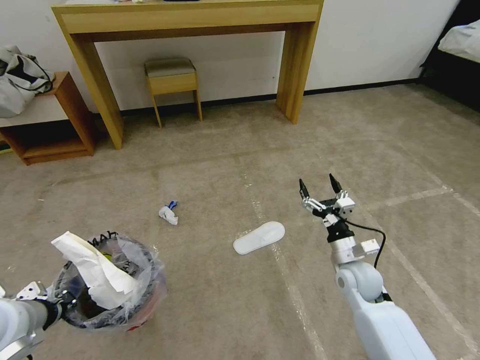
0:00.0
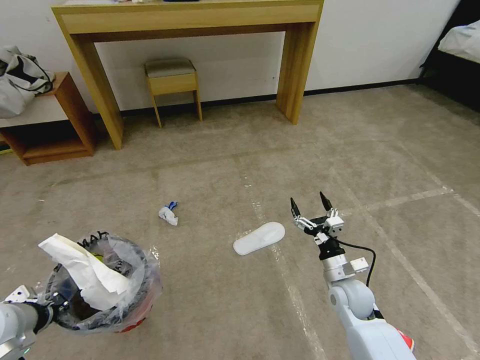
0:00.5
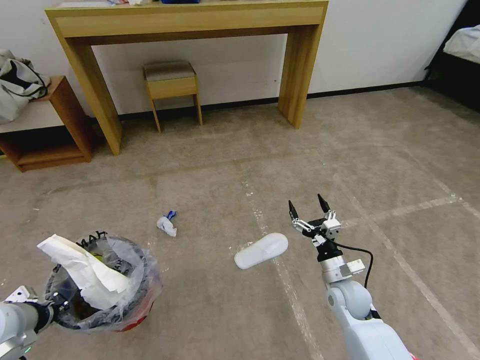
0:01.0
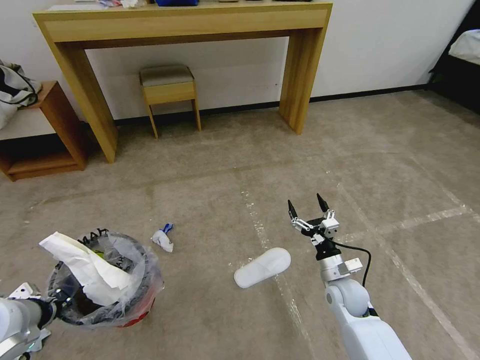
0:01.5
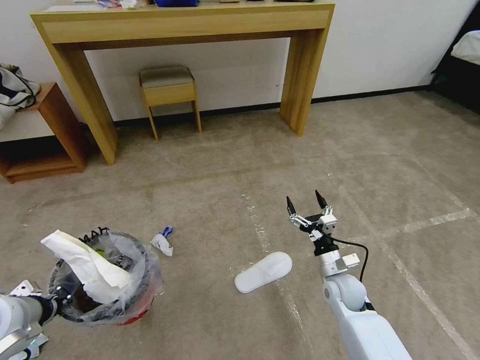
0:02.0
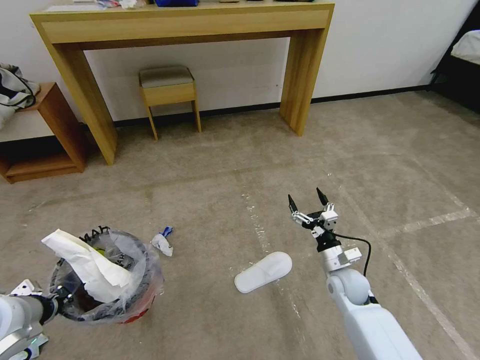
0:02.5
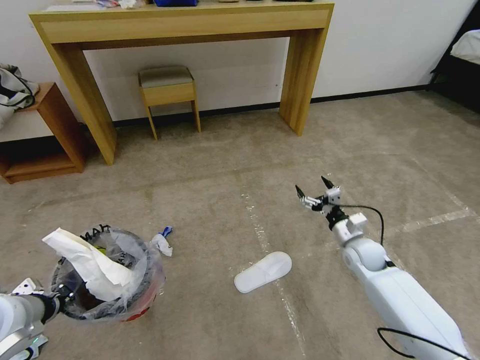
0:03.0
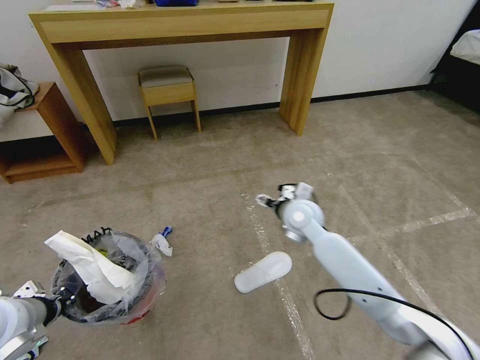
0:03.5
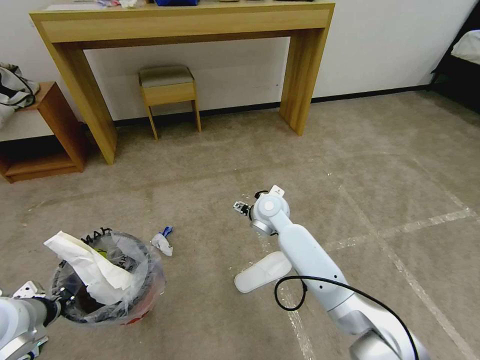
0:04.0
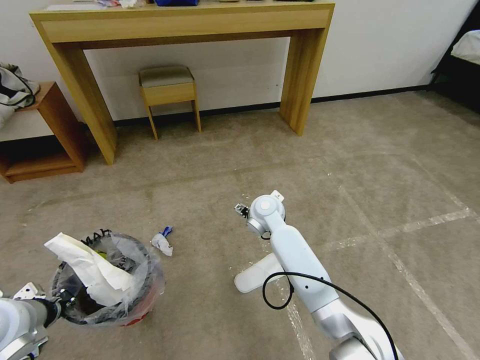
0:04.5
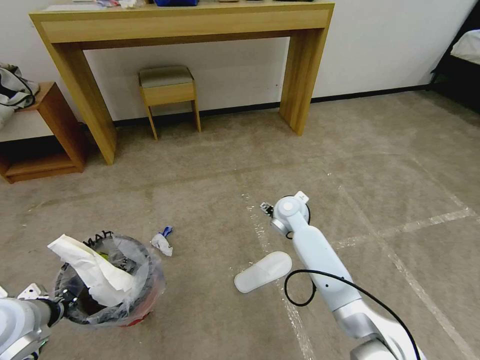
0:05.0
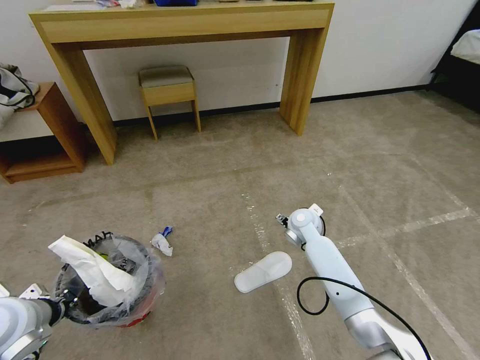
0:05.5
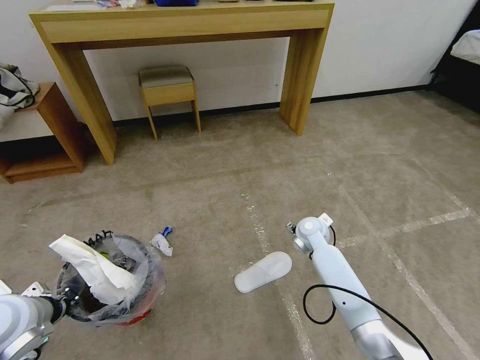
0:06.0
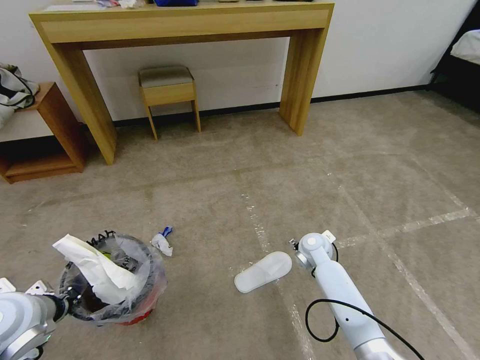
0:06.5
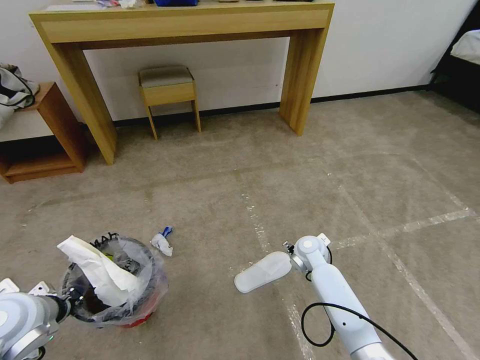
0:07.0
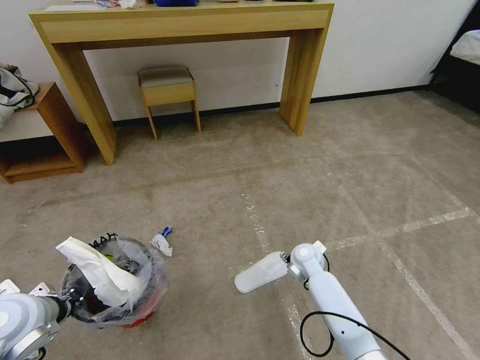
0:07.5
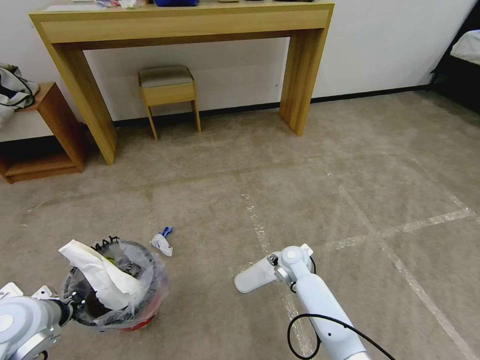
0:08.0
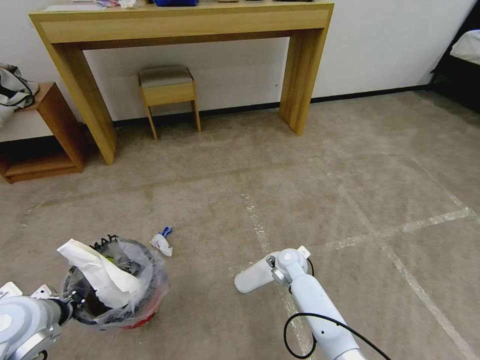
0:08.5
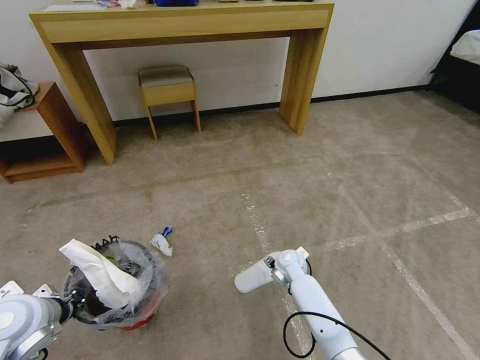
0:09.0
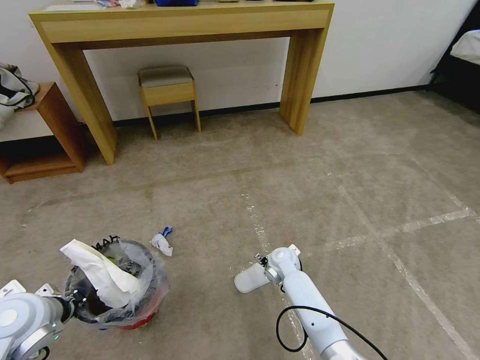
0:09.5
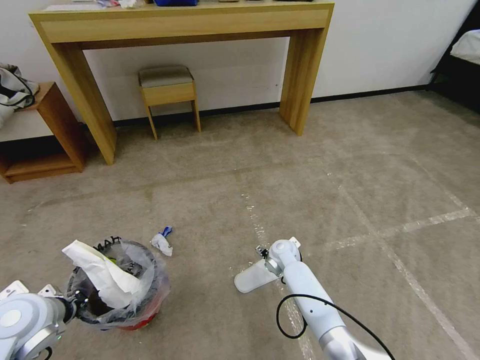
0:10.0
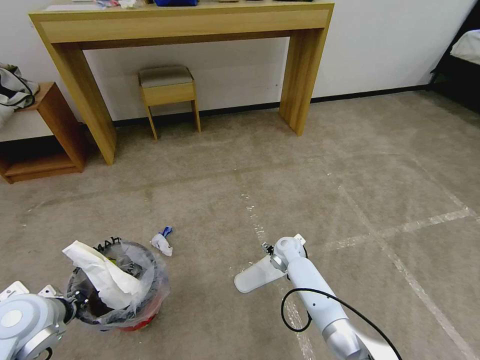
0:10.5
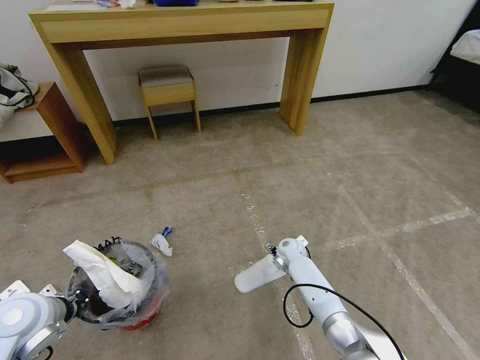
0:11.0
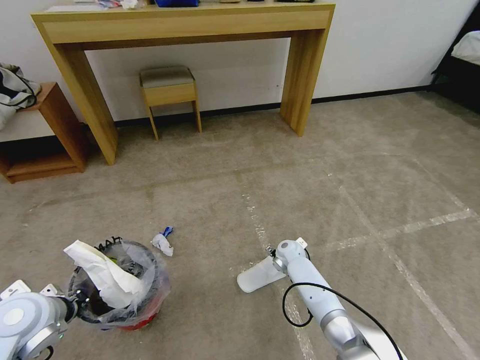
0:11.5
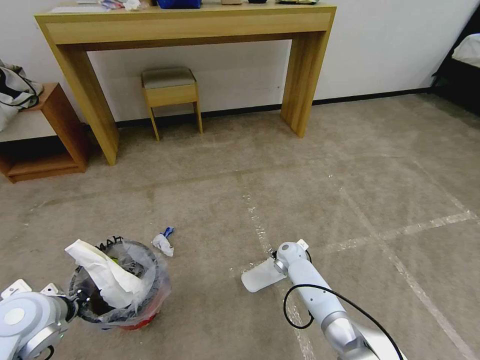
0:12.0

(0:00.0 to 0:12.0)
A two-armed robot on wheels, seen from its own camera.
Task of the whole recording: Pick up the trash bin and place the garbage on the floor into it.
0:00.0 - 0:02.0: The right gripper is displaced downward by about 5 cm.
0:02.0 - 0:04.0: The right gripper shifts about 30 cm to the left, forward and upward.
0:04.0 - 0:06.0: The right gripper goes roughly 15 cm to the right and downward.
0:06.0 - 0:08.0: The right gripper travels downward, backward and to the left by some 10 cm.
0:08.0 - 0:10.0: The right gripper shifts by about 5 cm.
0:10.0 - 0:12.0: The right gripper shifts by roughly 5 cm.

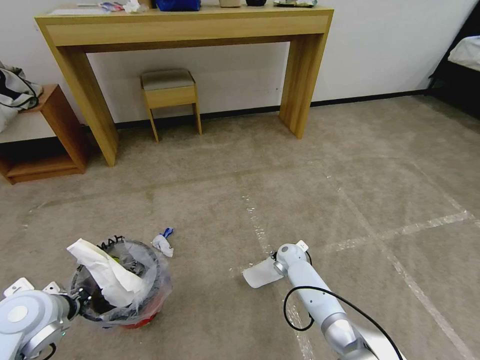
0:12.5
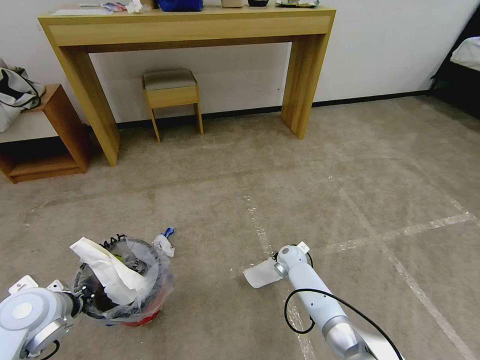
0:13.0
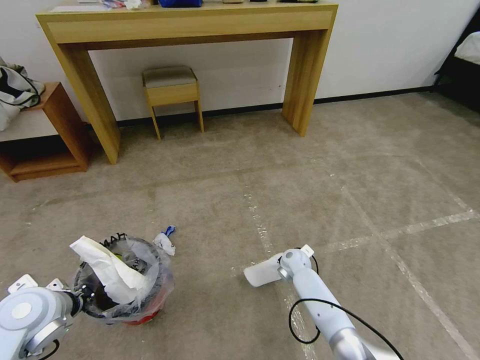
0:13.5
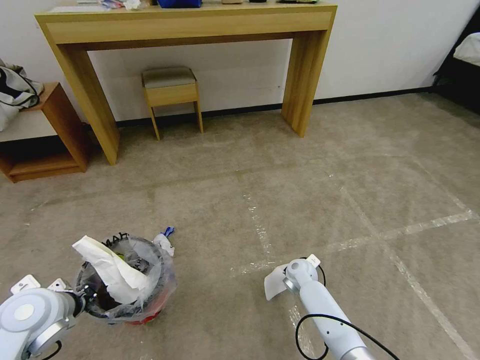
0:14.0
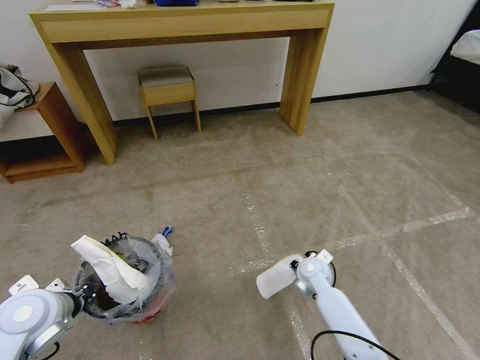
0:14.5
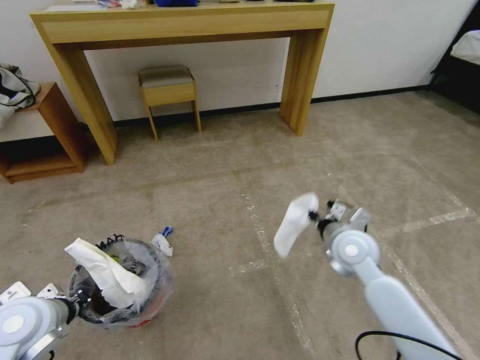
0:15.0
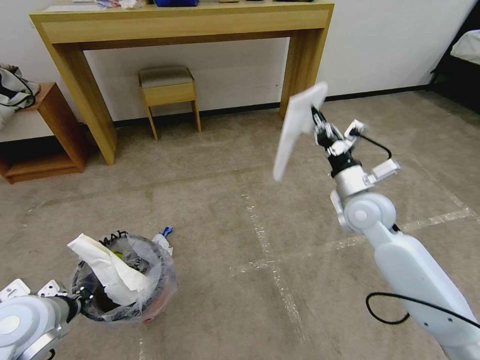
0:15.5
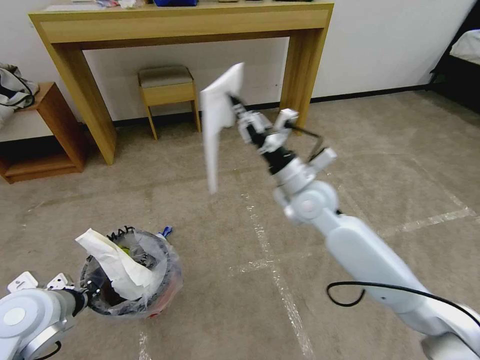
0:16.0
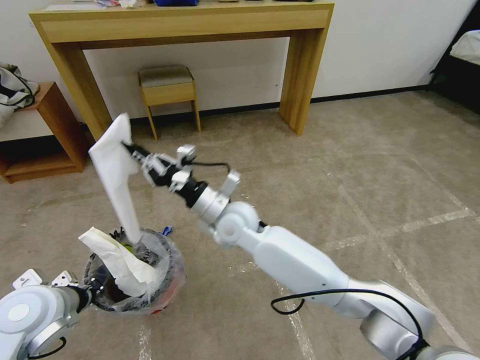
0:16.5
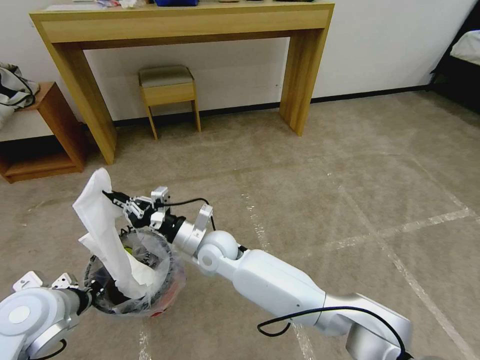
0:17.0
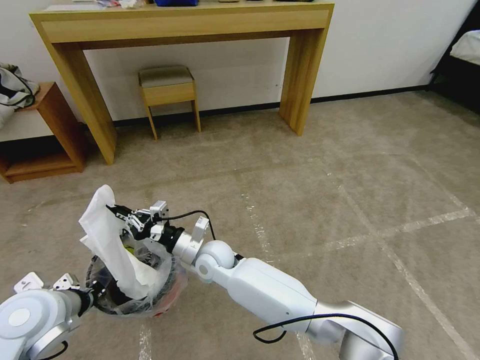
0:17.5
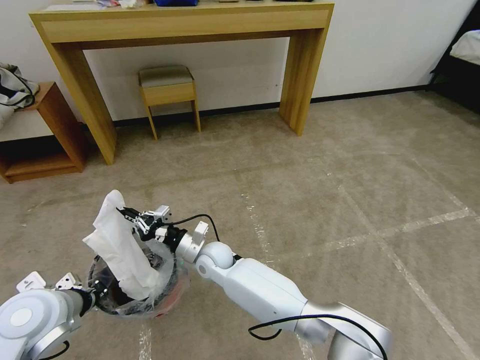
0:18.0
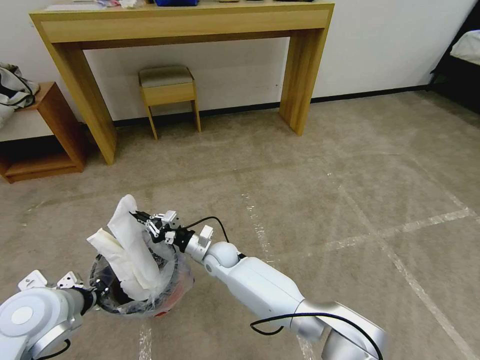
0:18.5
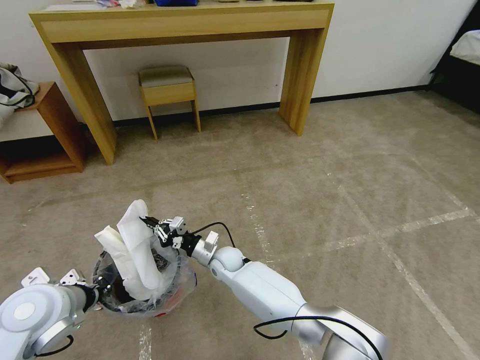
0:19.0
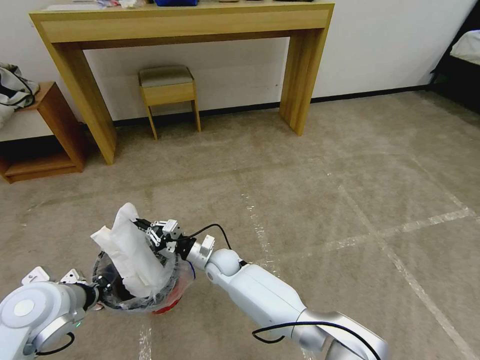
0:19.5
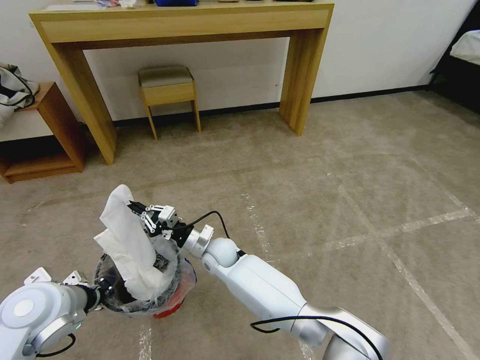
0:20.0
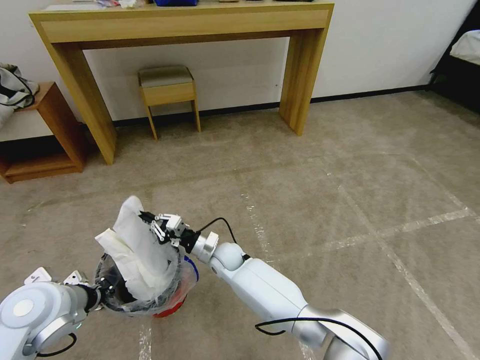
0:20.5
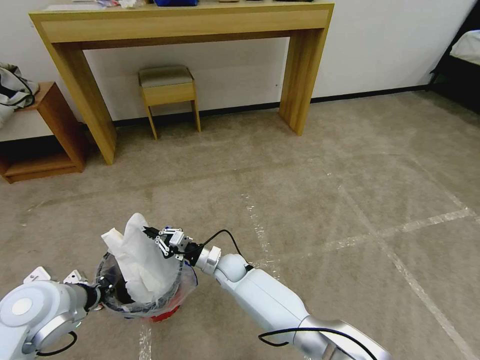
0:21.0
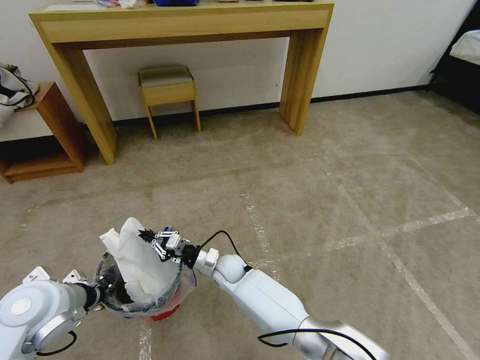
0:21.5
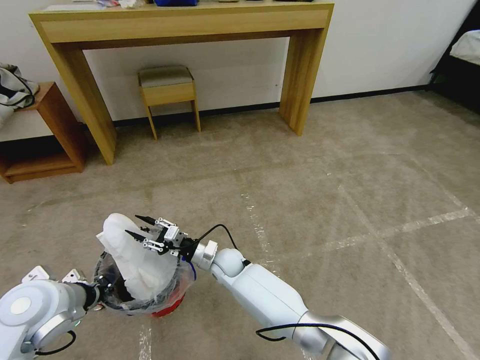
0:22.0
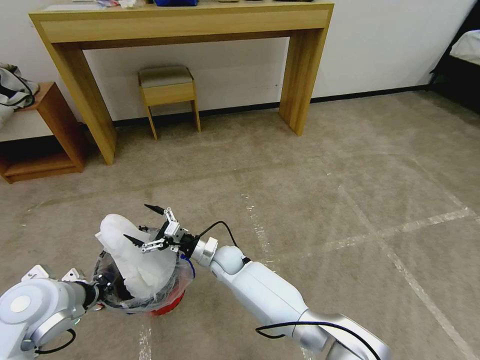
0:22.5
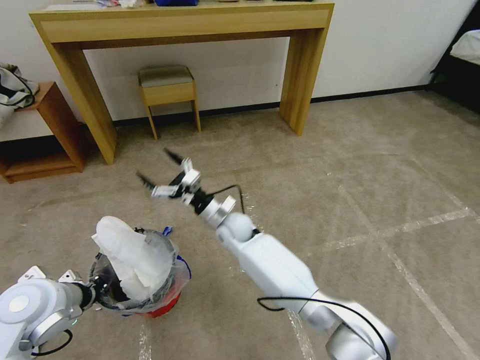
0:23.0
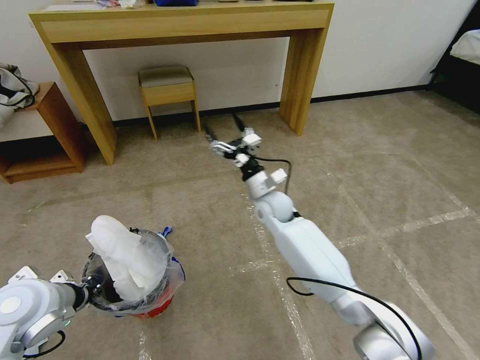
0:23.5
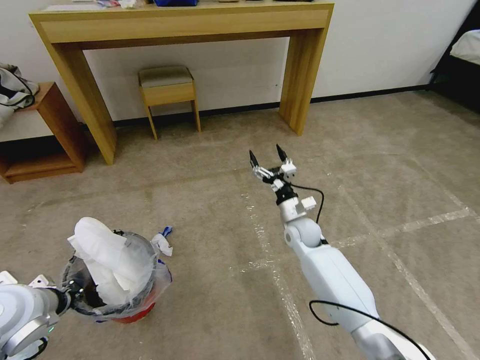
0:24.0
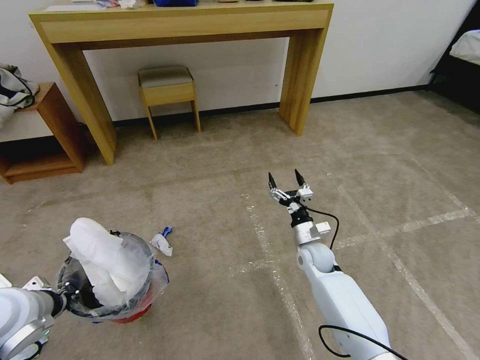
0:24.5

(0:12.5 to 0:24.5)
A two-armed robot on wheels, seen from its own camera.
Task of the whole recording: Pick up the trash bin and place the garbage on the floor into it.
0:12.5 - 0:14.5: The right gripper travels backward and upward by approximately 10 cm, and closes its fingers.
0:14.5 - 0:16.5: The right gripper travels to the left and upward by approximately 30 cm.
0:16.5 - 0:18.5: The right gripper goes roughly 20 cm downward.
0:18.5 - 0:20.5: The grippers make only small movements.
0:20.5 - 0:22.5: The right gripper opens its fingers.
0:22.5 - 0:24.5: The right gripper shifts approximately 25 cm to the right.

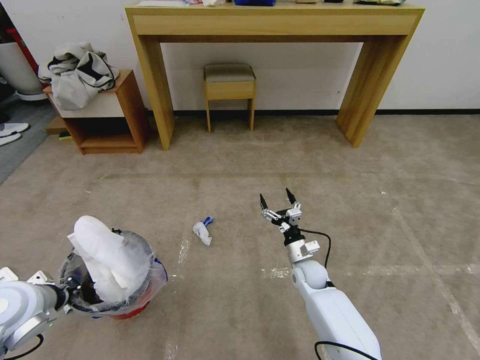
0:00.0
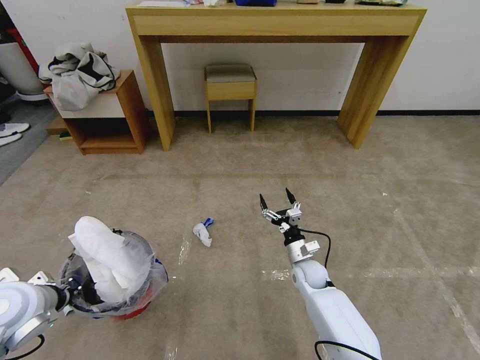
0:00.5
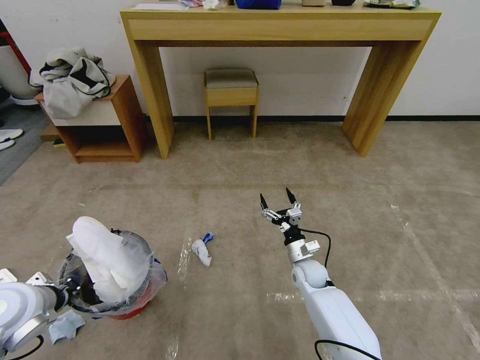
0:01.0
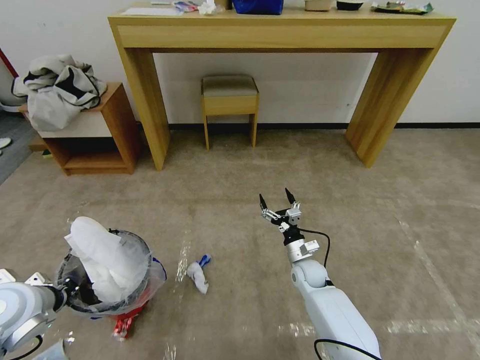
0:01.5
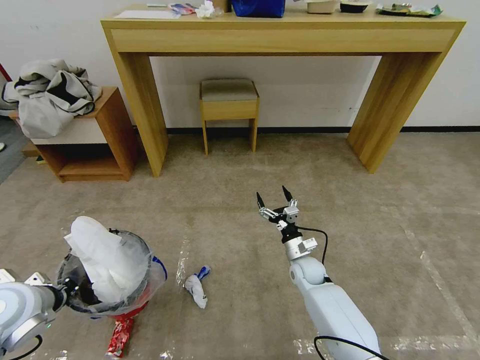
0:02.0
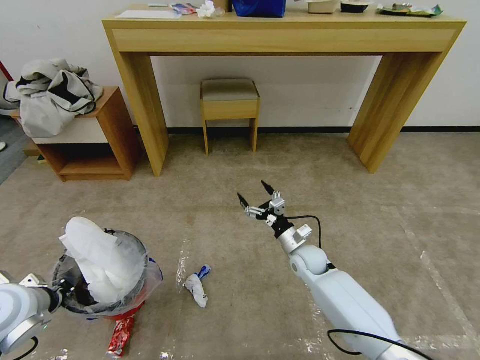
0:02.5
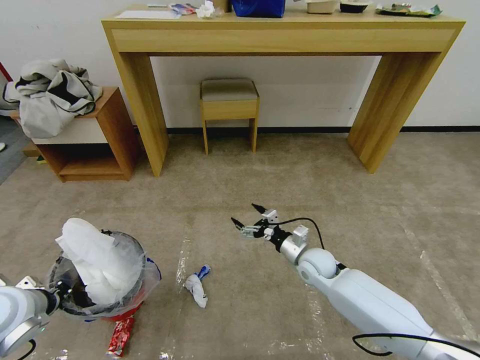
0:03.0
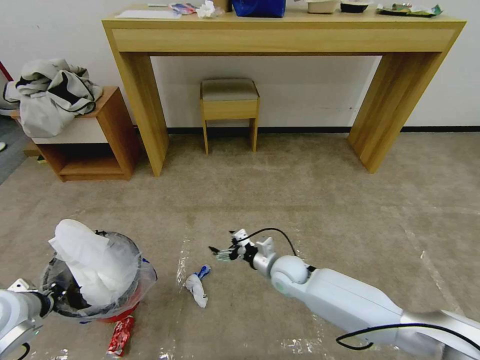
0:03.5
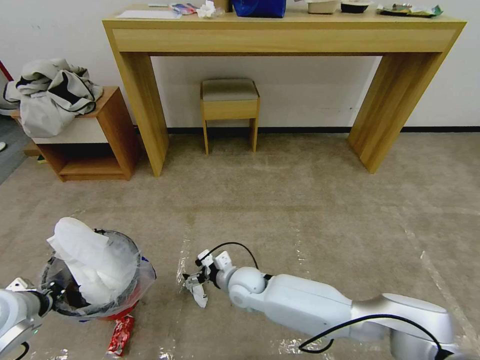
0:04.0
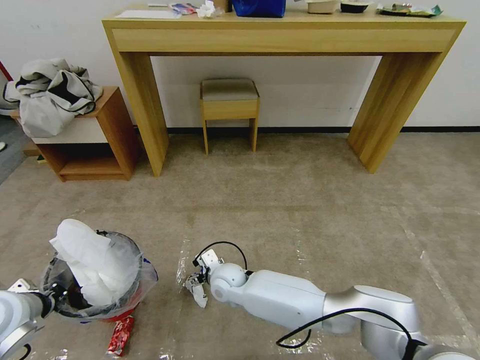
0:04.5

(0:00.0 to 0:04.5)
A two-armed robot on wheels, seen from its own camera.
Task of the whole recording: Pick up the trash bin and place the garbage on the floor into it.
0:02.0 - 0:04.5: The right gripper goes about 25 cm to the left.
